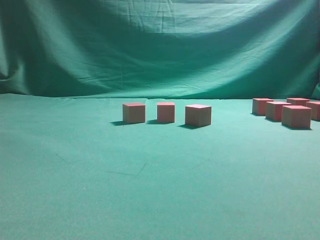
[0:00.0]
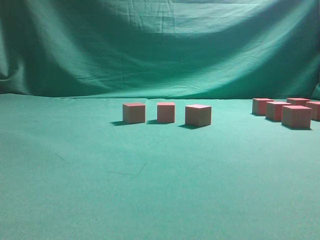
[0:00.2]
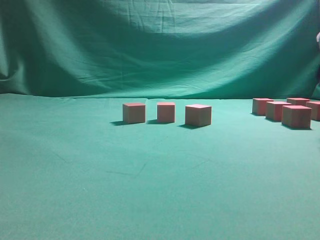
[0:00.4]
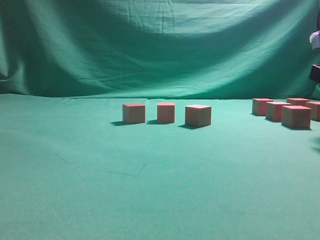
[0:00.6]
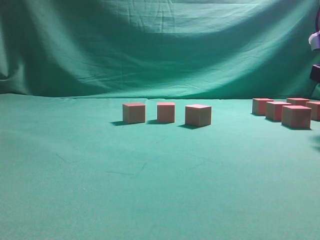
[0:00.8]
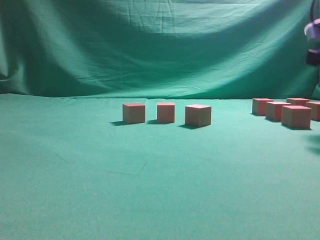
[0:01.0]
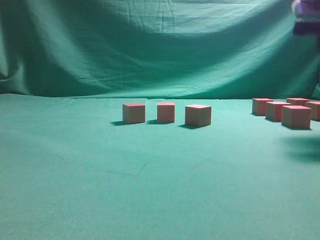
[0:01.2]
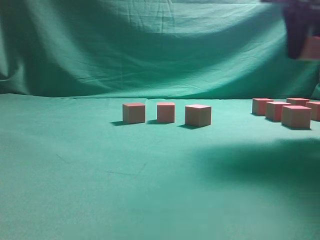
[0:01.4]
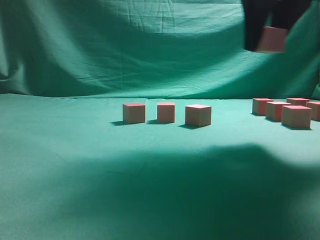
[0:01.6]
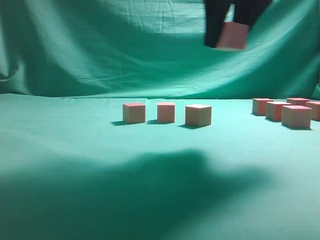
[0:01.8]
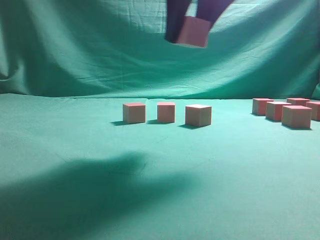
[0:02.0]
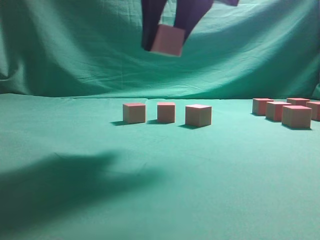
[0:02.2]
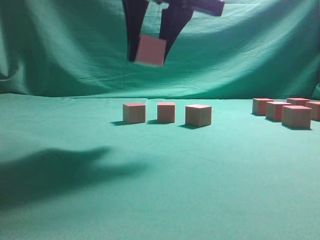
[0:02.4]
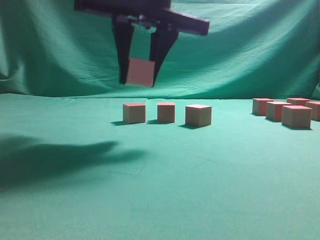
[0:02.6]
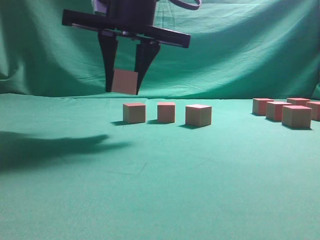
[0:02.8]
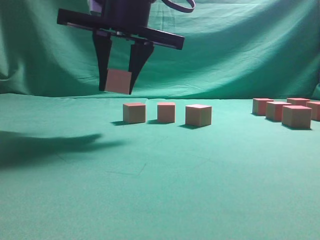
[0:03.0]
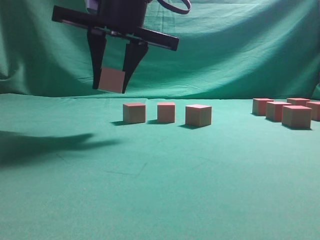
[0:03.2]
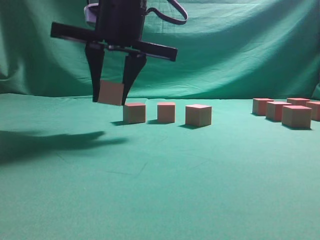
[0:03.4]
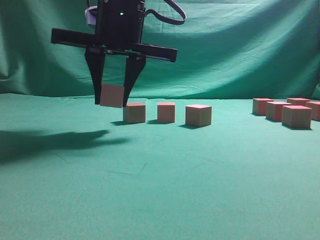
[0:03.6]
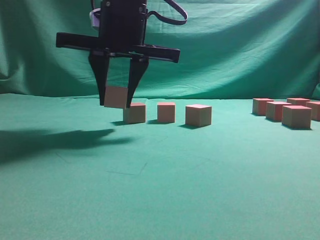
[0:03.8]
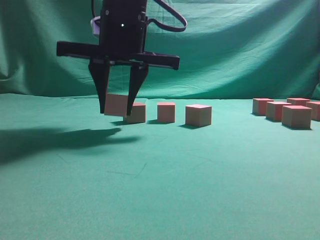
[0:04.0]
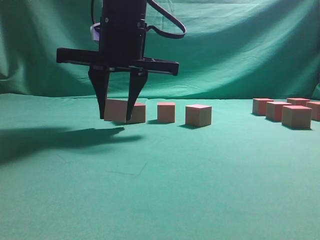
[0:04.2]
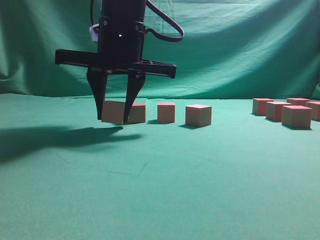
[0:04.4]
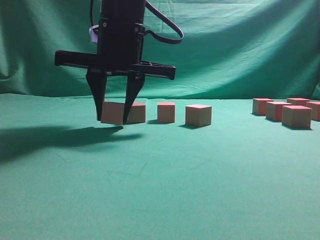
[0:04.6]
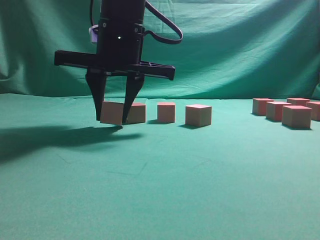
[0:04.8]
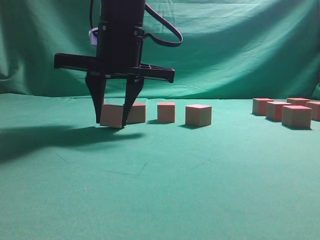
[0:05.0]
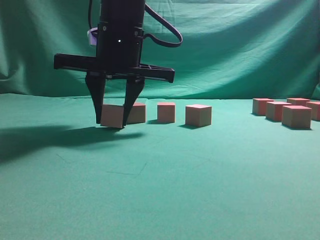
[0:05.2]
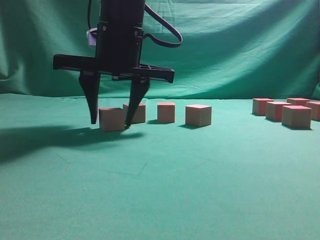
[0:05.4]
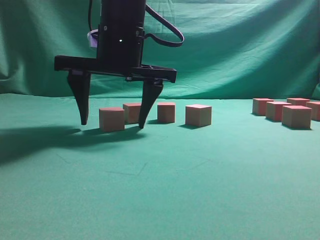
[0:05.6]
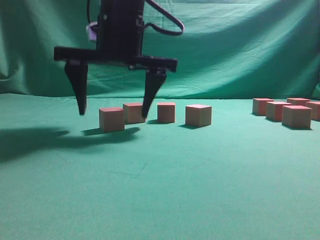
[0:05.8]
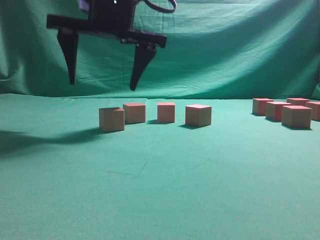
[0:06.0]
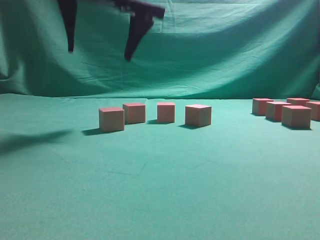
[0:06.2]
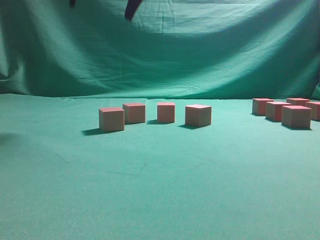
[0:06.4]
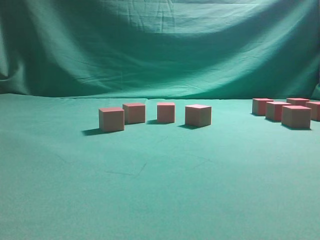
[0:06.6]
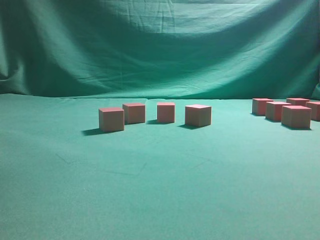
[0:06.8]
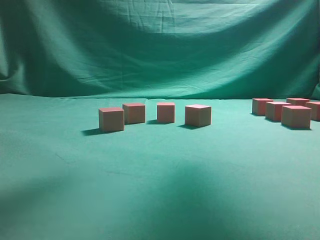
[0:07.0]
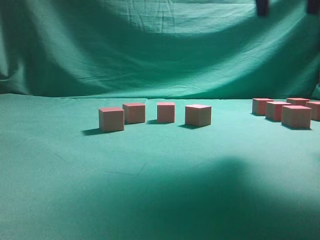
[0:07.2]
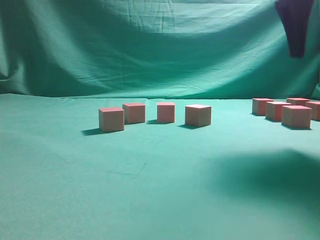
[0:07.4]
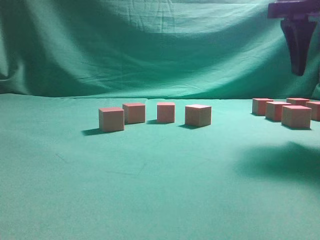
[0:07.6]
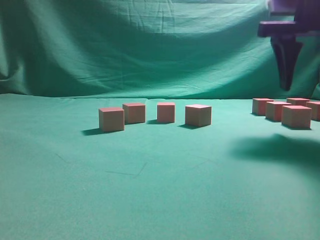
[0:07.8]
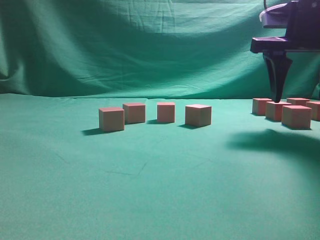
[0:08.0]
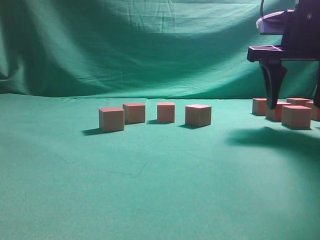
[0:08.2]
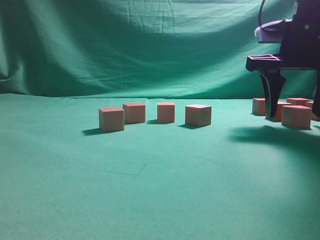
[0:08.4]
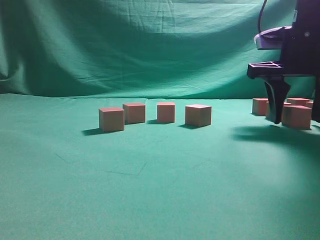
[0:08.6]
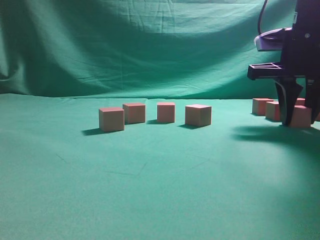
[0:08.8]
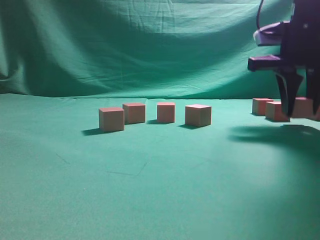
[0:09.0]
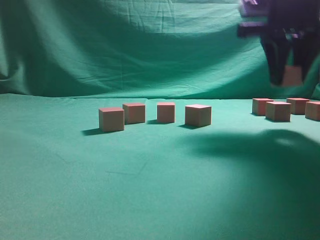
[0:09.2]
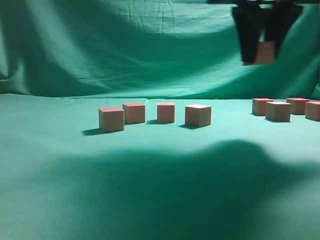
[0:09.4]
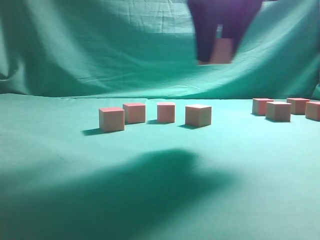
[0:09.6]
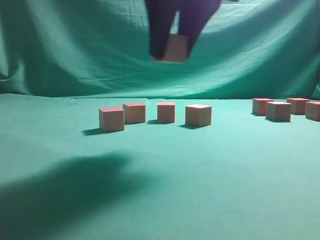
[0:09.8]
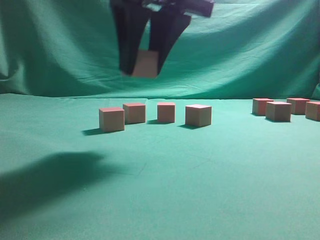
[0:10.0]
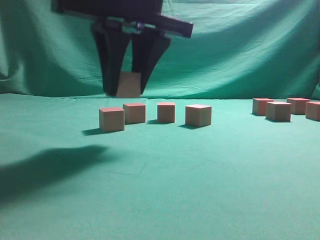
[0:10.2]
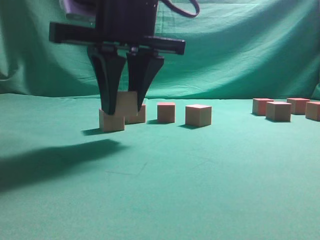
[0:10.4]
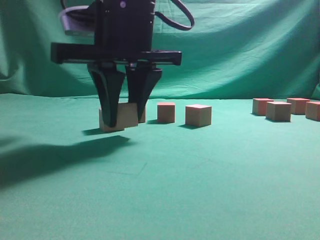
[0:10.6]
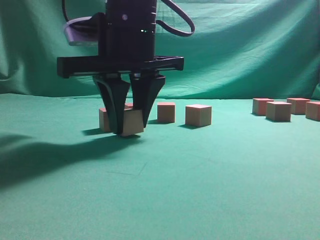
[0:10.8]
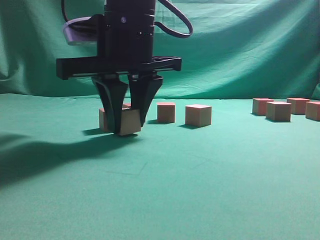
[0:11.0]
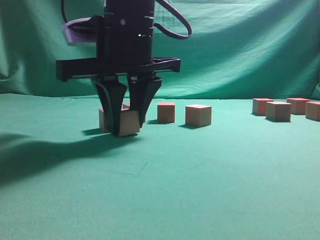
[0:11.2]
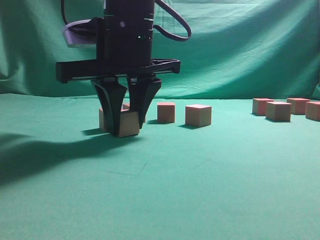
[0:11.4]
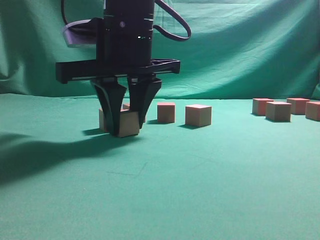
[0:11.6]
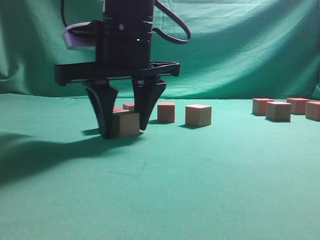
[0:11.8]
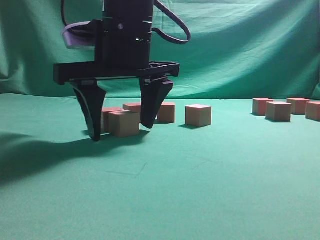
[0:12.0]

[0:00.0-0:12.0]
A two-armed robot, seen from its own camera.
Task of the whole recording: pick up the multiple cubes in two columns one by one and place them in another position on the table.
Step, 1.4 to 6.2 s: Place the block at the correct position to assemble the letter S.
Step, 6.4 to 9.0 s: Pick up the block on the table.
0.0 to 1.6 s: The right gripper moves to the left and upward, some 15 cm, and closes.
1.6 to 3.0 s: The right gripper moves to the left, roughly 20 cm.
3.0 to 4.4 s: The grippers stay close to where they were, moving slightly.
4.4 to 6.0 s: The right gripper opens.
6.0 to 7.6 s: The right gripper goes about 25 cm to the right.
7.6 to 9.0 s: The right gripper goes about 5 cm downward, and closes up.
9.0 to 10.4 s: The right gripper goes some 25 cm to the left.
10.4 to 12.0 s: The right gripper opens.

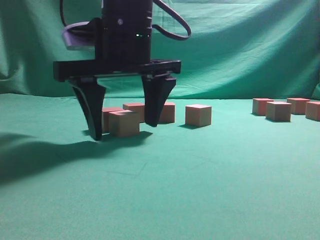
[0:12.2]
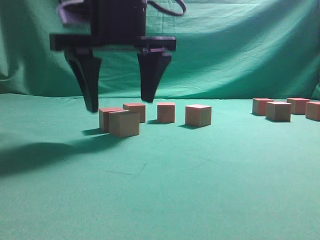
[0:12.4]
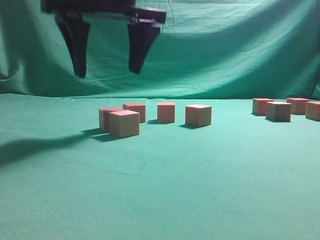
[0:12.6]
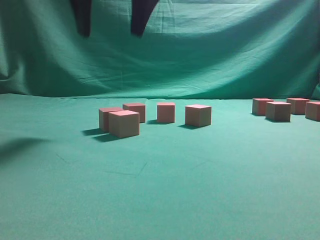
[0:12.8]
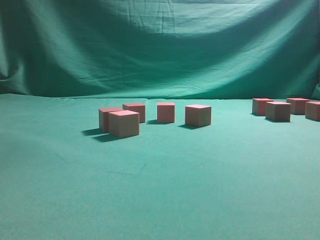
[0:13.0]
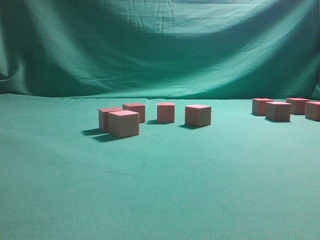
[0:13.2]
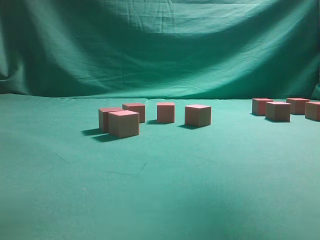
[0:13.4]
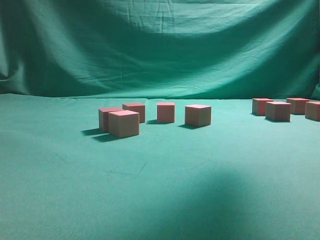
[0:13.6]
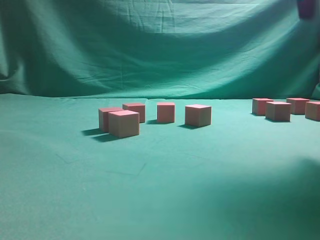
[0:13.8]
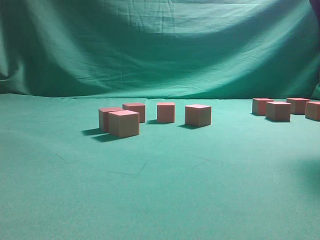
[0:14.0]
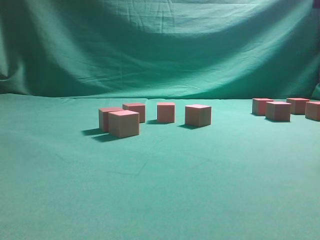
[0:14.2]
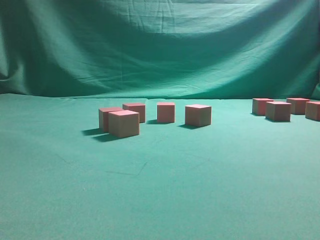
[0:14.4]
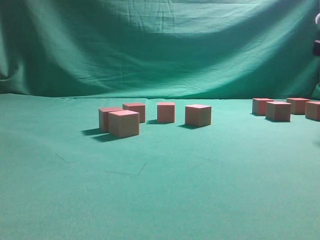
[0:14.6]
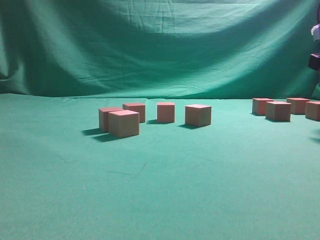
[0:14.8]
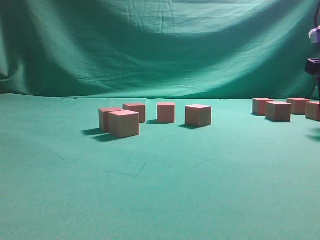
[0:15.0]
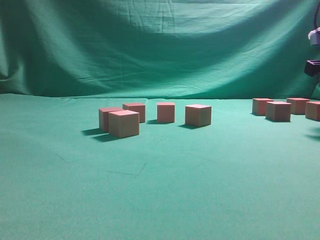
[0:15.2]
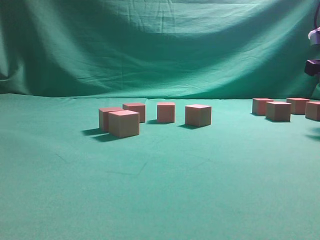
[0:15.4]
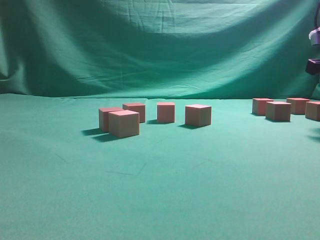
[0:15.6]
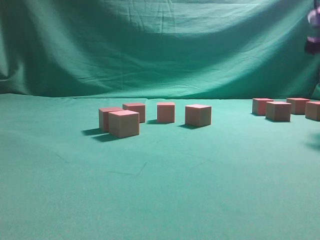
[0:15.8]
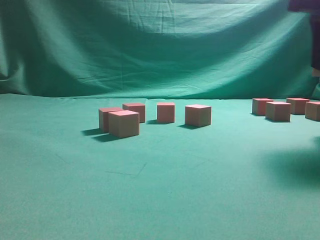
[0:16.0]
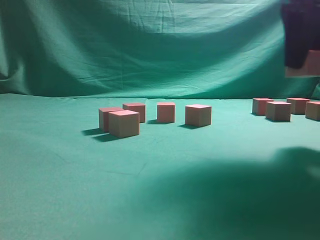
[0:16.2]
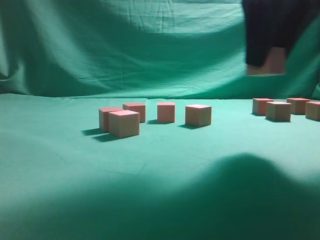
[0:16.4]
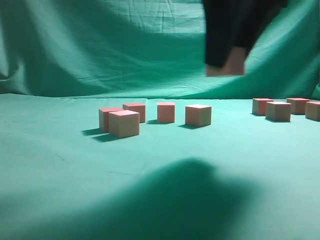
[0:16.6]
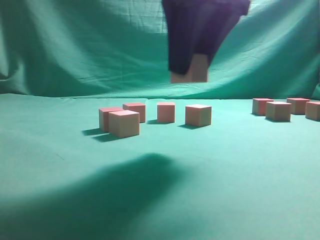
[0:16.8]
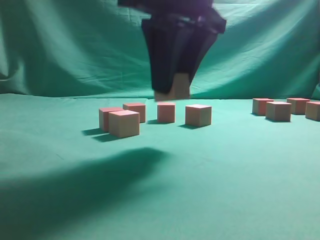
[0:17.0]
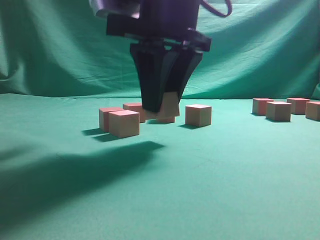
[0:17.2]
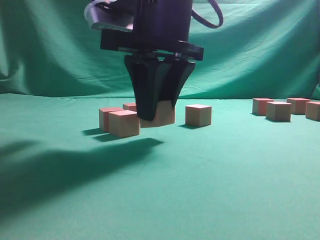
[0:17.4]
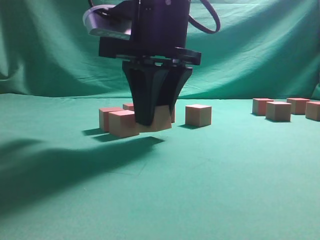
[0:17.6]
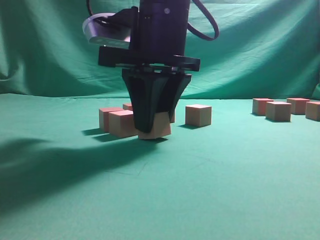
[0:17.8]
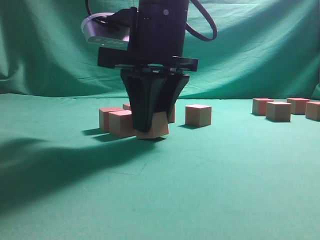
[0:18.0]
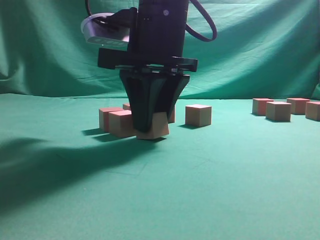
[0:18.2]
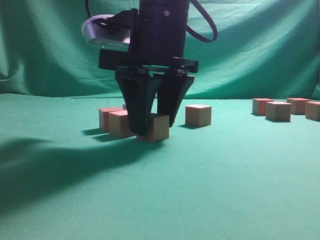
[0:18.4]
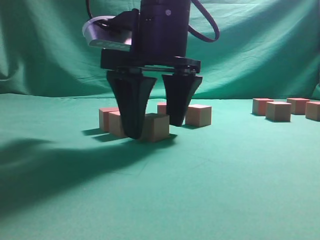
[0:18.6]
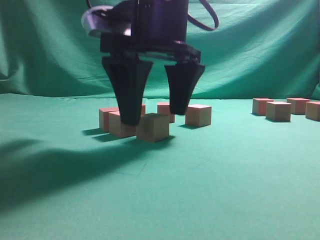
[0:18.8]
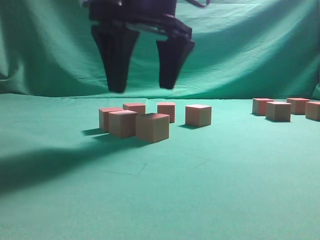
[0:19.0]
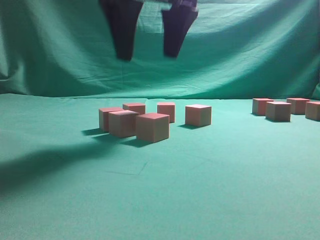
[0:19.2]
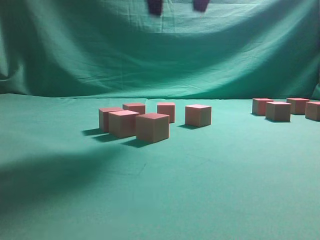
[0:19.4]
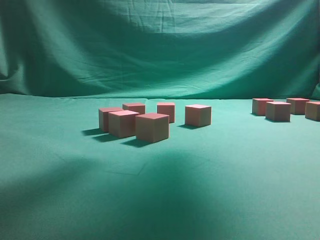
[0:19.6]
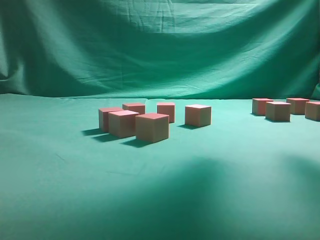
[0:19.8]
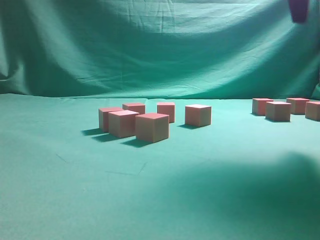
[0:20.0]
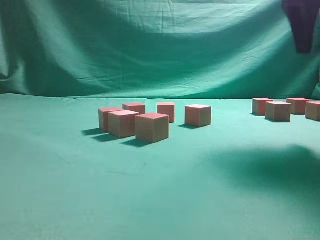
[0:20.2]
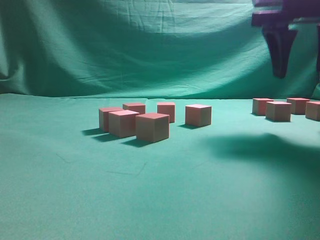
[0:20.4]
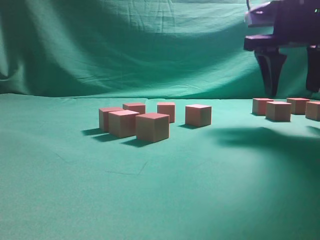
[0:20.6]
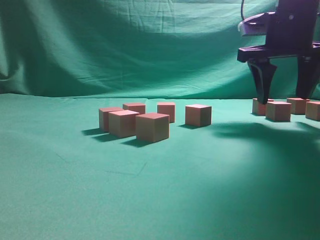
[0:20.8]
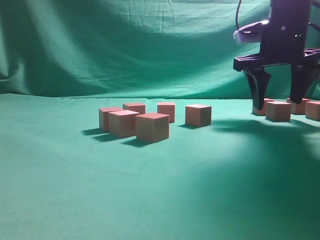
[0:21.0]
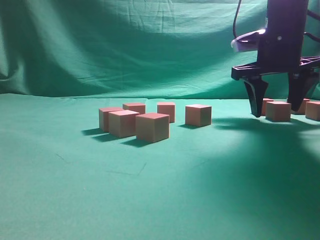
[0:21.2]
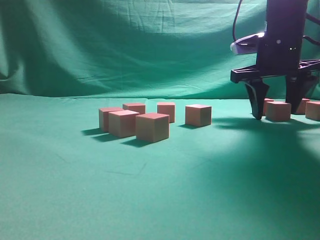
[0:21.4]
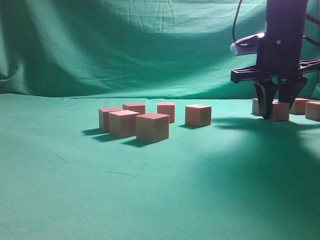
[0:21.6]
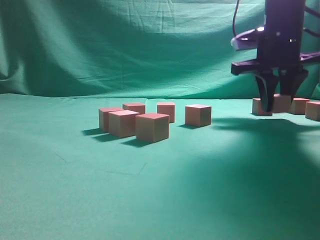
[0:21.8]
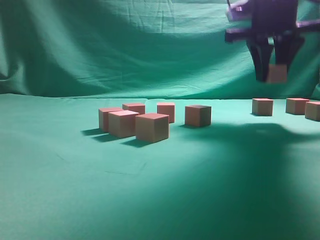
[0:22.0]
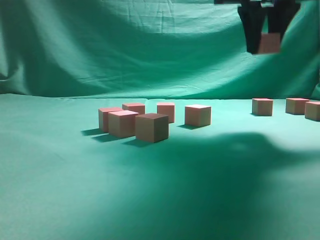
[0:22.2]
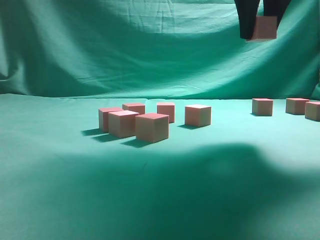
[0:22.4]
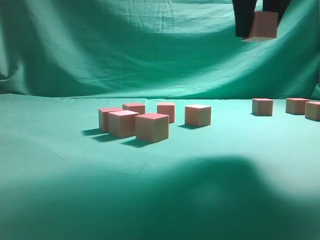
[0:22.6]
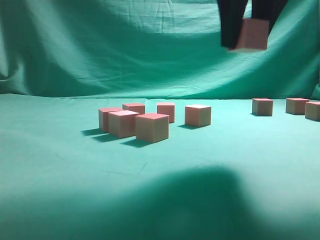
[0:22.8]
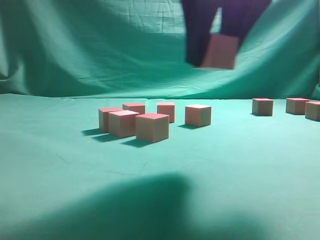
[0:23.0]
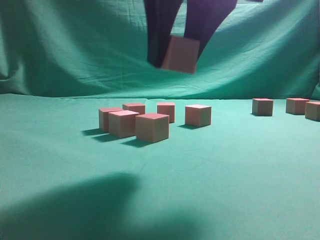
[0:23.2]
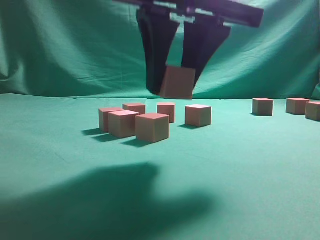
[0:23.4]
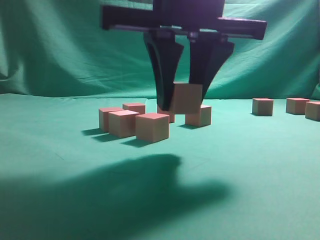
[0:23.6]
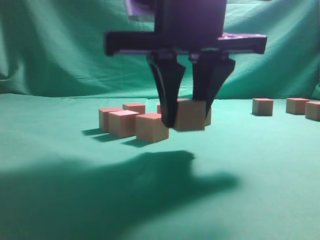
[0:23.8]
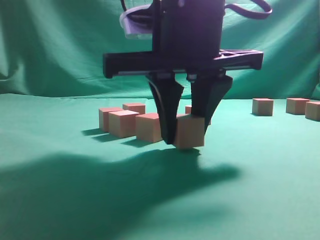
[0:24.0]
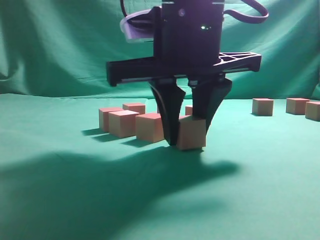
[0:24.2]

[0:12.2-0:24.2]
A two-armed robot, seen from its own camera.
Task of the whole recording: pick up the multiple cubes in two columns one by one and place them in another position on the table.
Step, 12.8 to 15.8 s: Pick up the block on the table.
Step, 16.0 to 19.2 s: Place the block at the correct position to assemble the letter S.
Step, 19.4 to 21.8 s: Pick up the block on the table.
12.2 to 13.8 s: The right gripper travels to the right and upward by roughly 30 cm.
13.8 to 15.2 s: The right gripper moves downward and to the right, some 15 cm.
15.2 to 16.6 s: The right gripper travels to the left, backward and upward by some 25 cm.
16.6 to 18.2 s: The right gripper travels to the left, downward and forward by approximately 15 cm.
18.2 to 19.8 s: The right gripper moves upward and to the right, some 25 cm, and opens.
19.8 to 21.2 s: The right gripper heads downward and forward, covering about 20 cm.
21.2 to 22.6 s: The right gripper heads upward, backward and to the left, covering approximately 15 cm, and closes up.
22.6 to 24.2 s: The right gripper is displaced downward, to the left and backward by roughly 15 cm.
